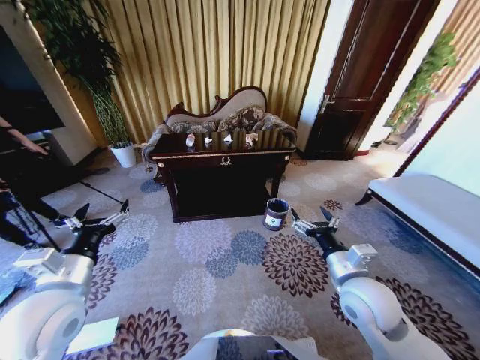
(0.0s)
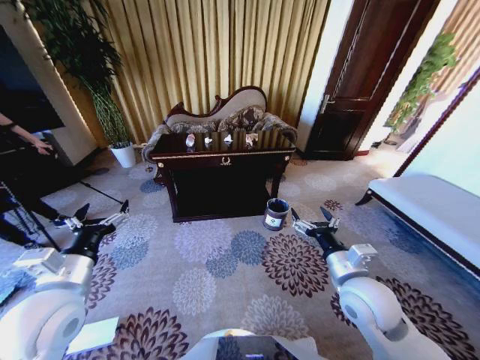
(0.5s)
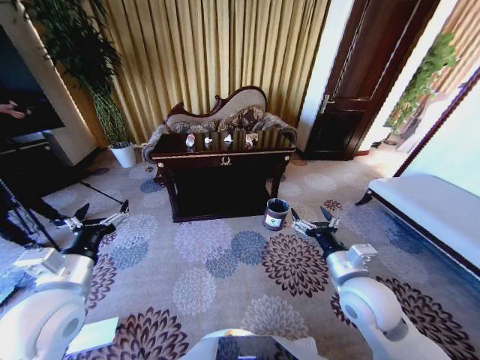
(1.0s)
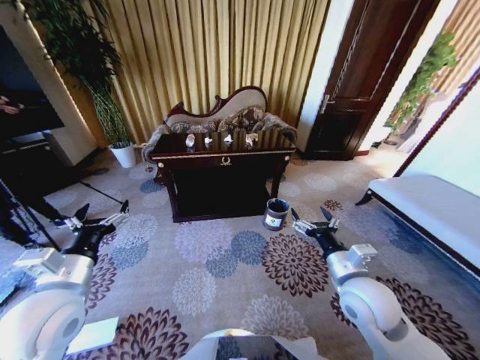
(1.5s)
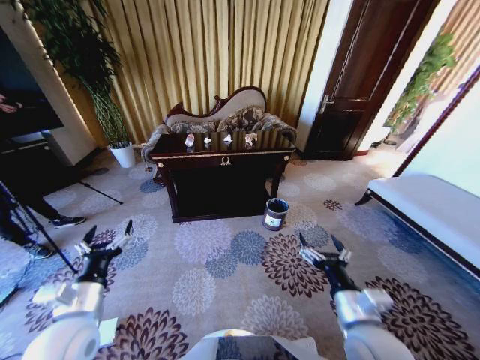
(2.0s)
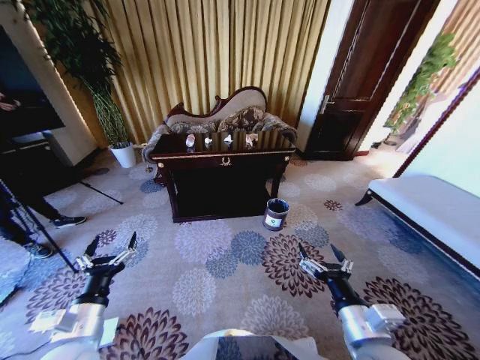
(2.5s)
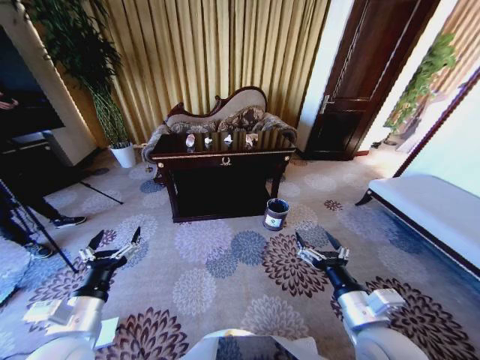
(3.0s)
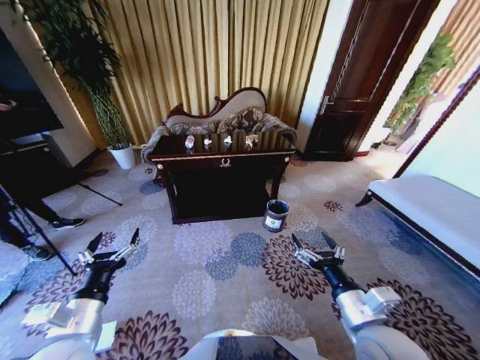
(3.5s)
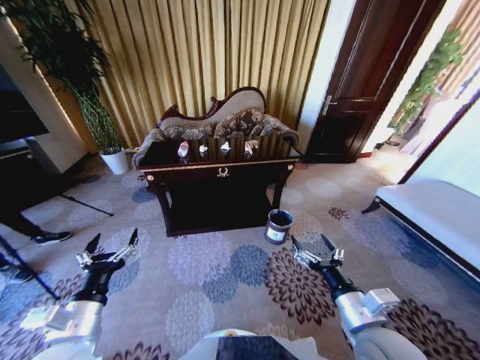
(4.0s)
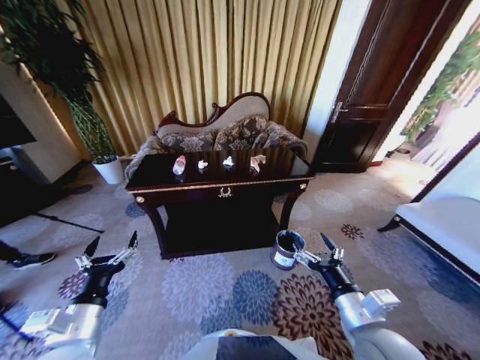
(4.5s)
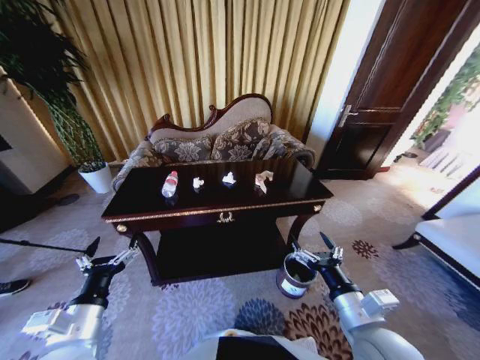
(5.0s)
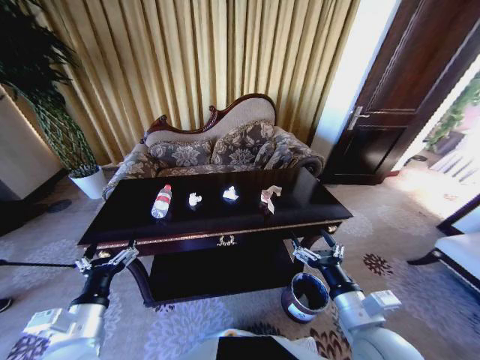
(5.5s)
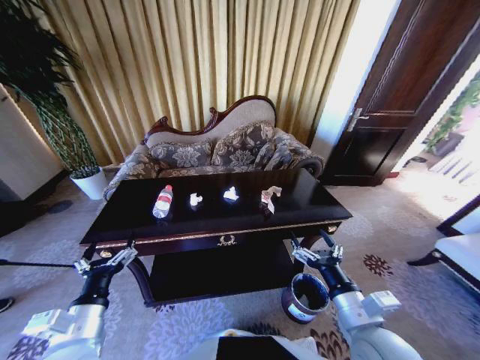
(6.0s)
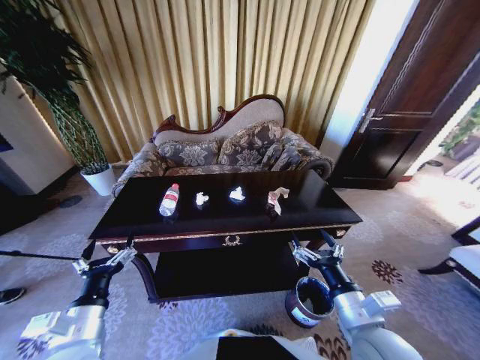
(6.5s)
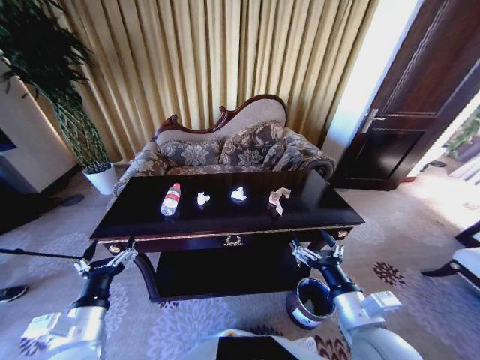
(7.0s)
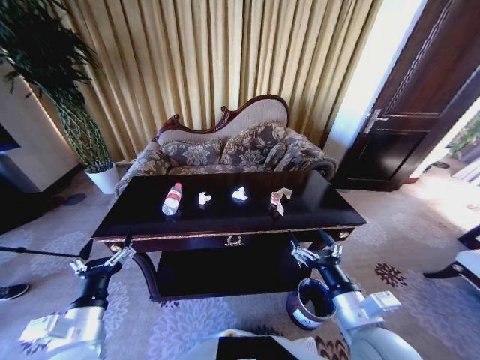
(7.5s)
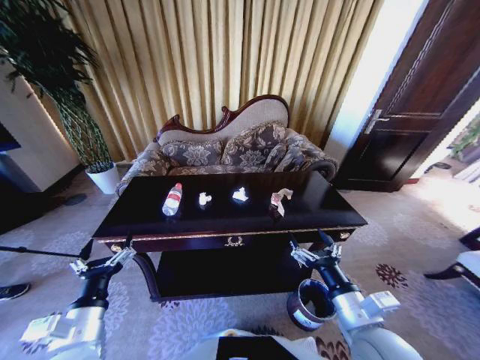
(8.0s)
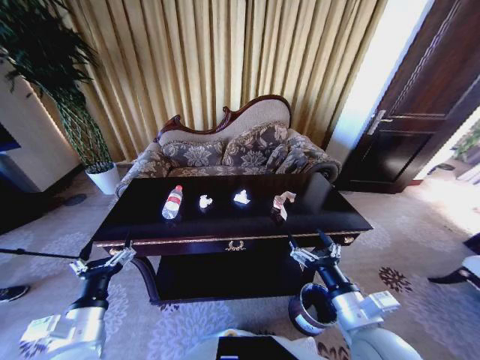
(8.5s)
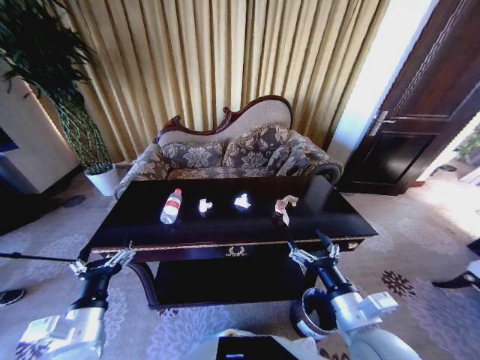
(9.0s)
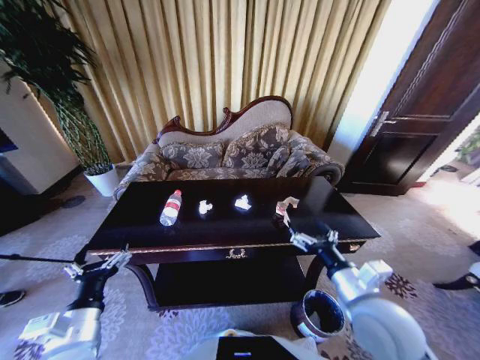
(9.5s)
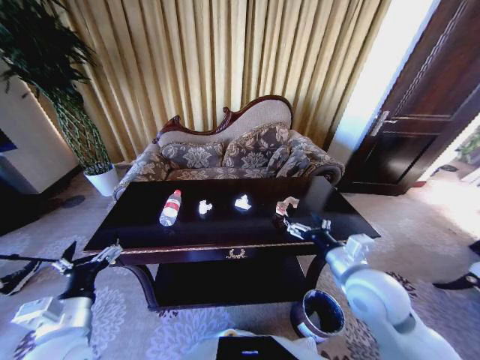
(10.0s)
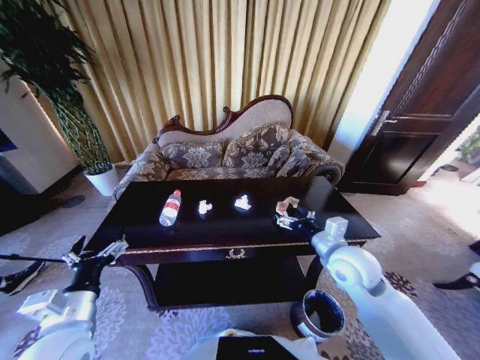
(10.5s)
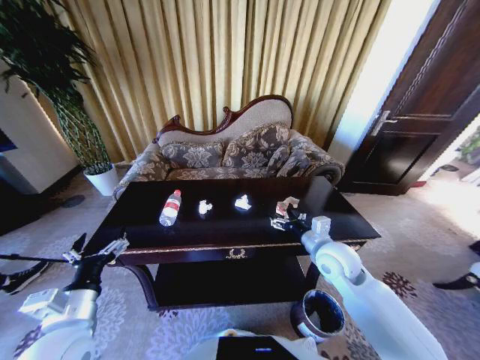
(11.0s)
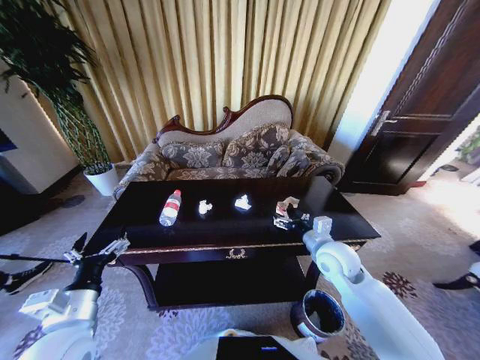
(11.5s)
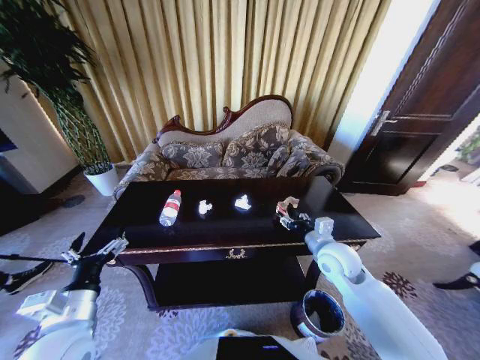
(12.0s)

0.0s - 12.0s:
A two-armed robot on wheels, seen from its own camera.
Task of the whole recording: Move to the front of the table and place the trash on the table into the trash bin.
8.0s - 10.0s: The right gripper heads forward, covering some 10 cm.
10.0s - 12.0s: The right gripper heads forward, covering some 10 cm.

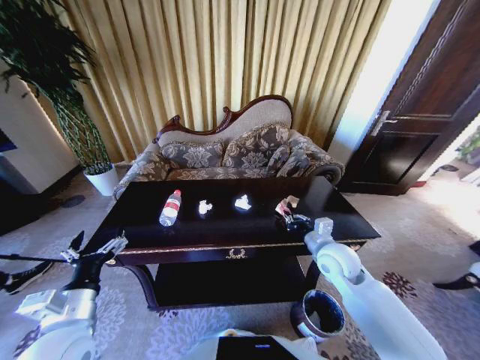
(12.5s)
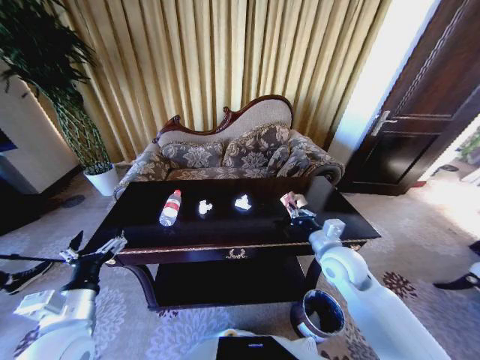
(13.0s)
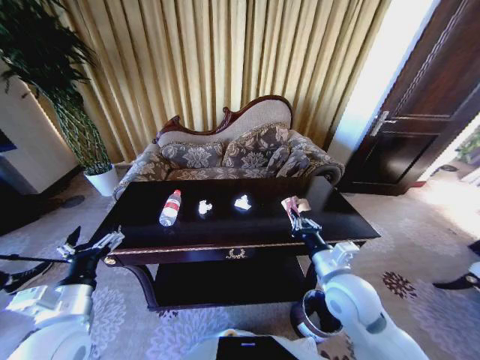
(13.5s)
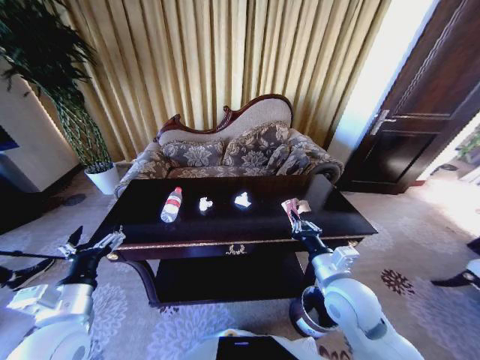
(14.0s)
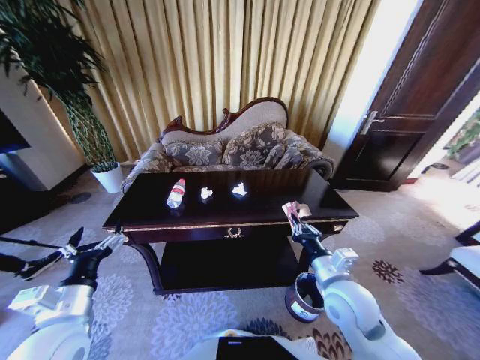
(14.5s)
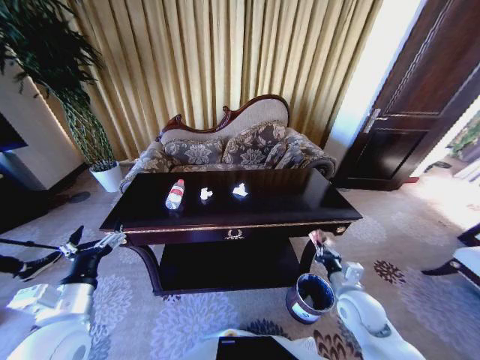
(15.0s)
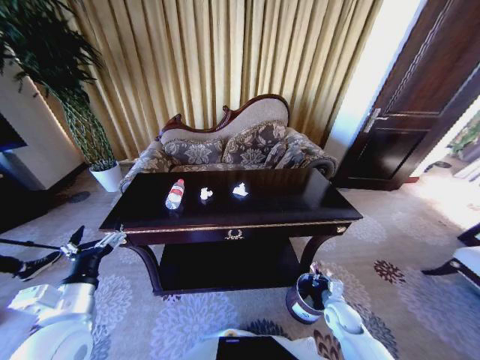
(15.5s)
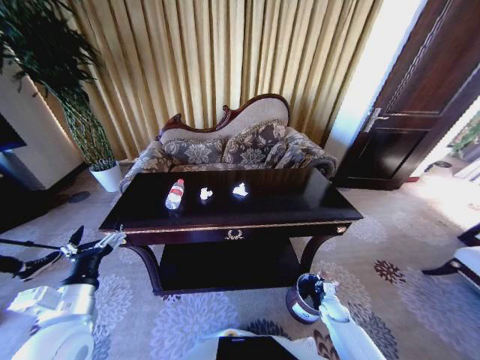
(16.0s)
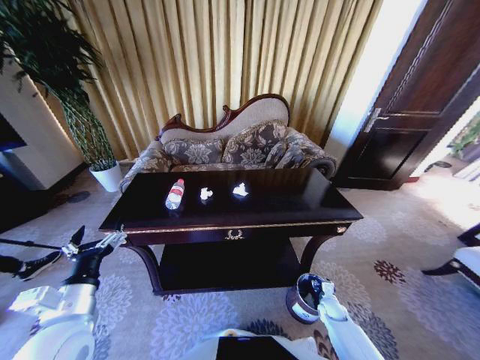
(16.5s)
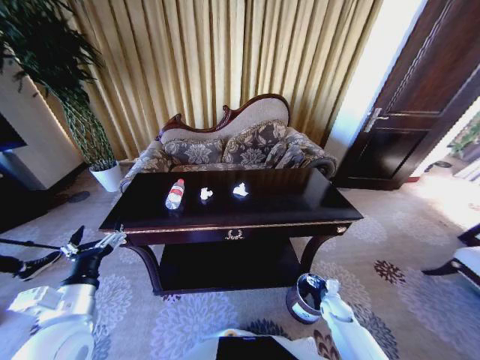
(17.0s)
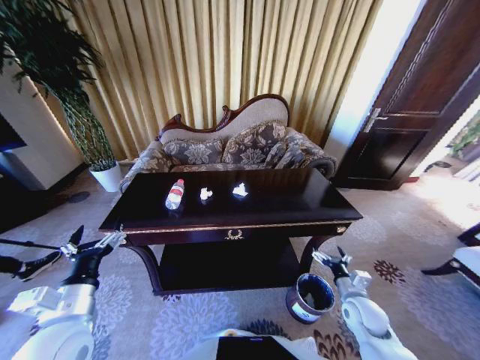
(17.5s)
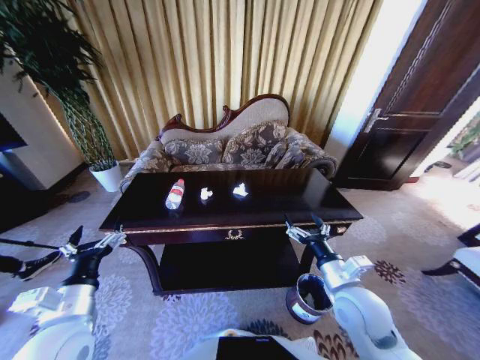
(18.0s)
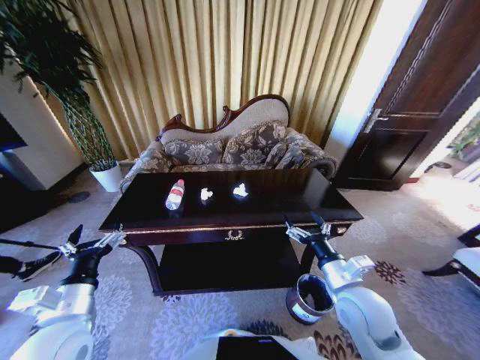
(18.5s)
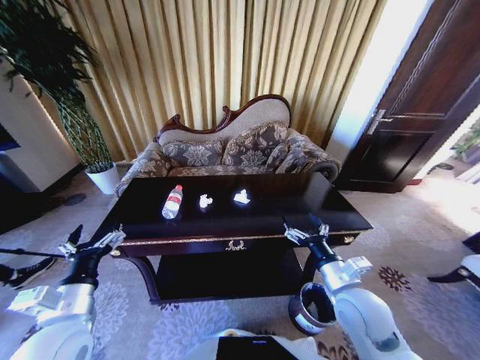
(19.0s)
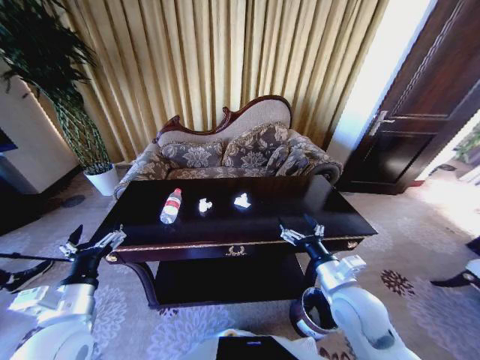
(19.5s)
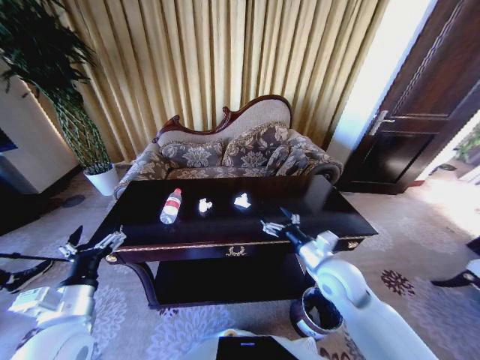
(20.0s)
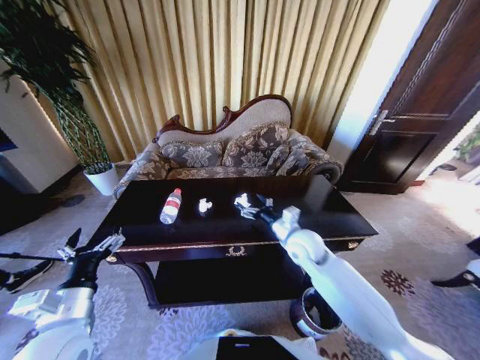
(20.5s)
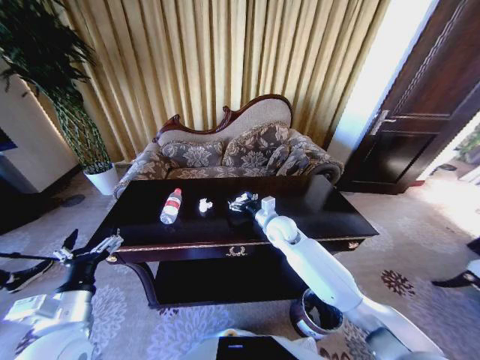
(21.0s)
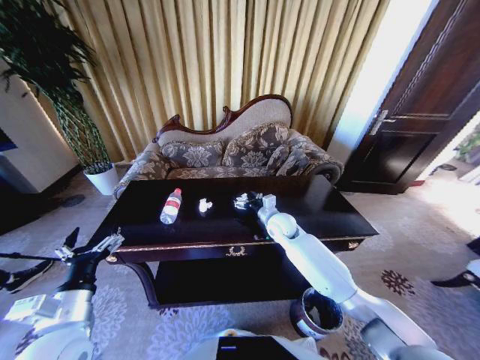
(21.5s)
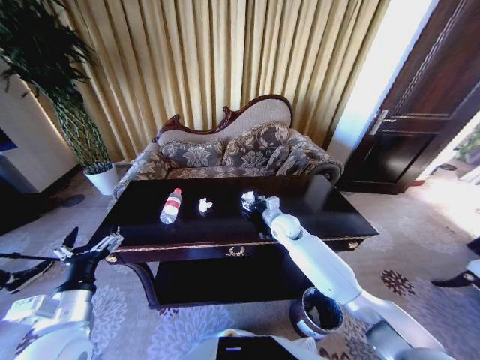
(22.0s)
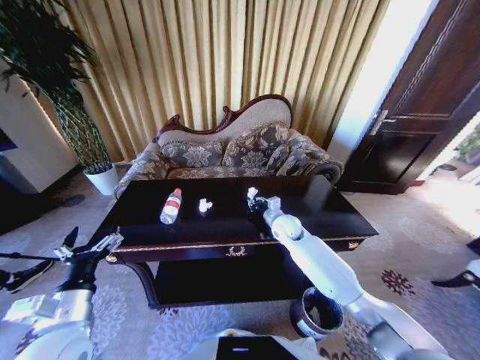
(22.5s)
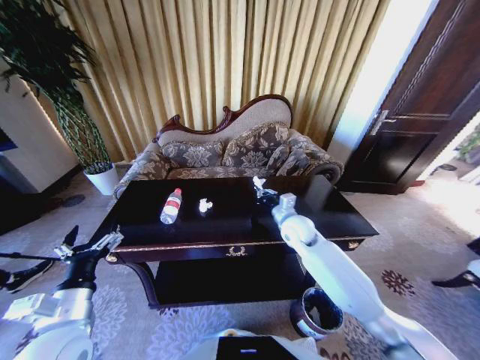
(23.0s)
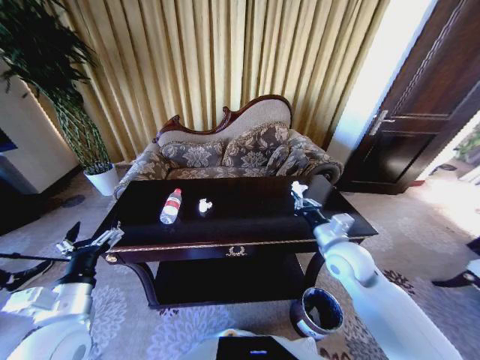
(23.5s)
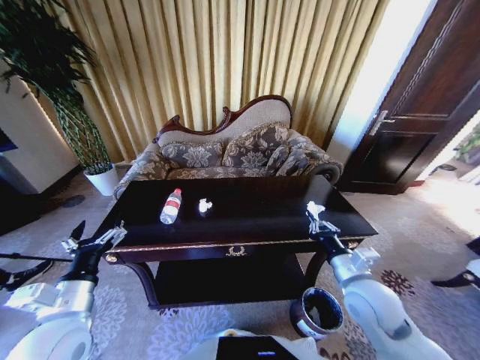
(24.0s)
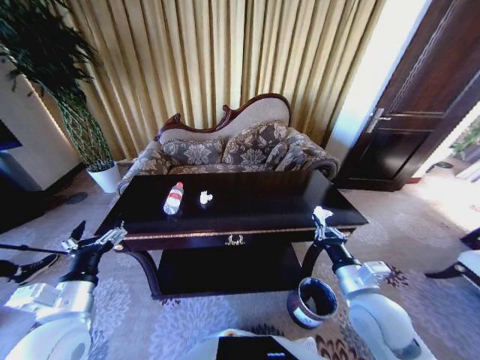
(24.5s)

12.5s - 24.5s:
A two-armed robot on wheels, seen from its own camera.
Task of the whole recording: Move to the front of the table and place the trash on the table into the trash bin.
12.5s - 14.5s: The right gripper goes roughly 10 cm backward.
14.5s - 16.5s: The right gripper travels downward and to the right by roughly 35 cm, and opens.
16.5s - 18.5s: The right gripper goes approximately 35 cm upward, and opens up.
18.5s - 20.5s: The right gripper goes roughly 20 cm forward and to the left.
20.5s - 22.5s: The right gripper goes roughly 10 cm forward, and closes.
22.5s - 24.5s: The right gripper goes roughly 25 cm backward.

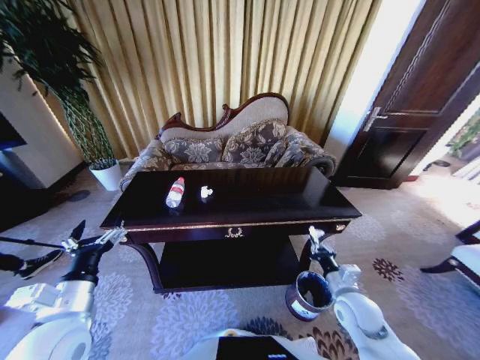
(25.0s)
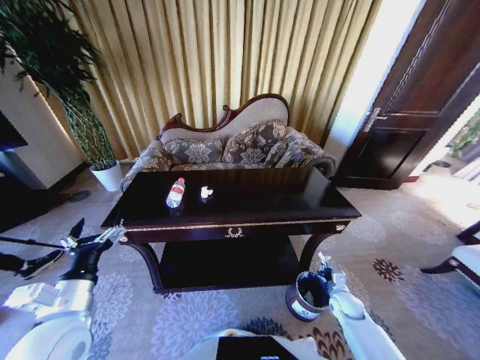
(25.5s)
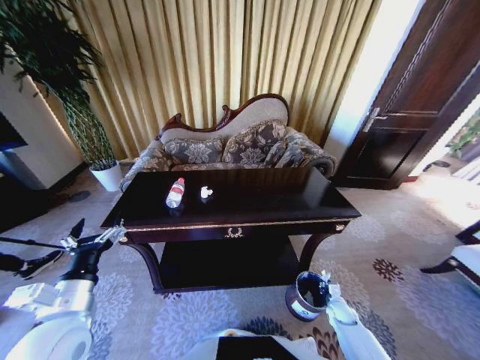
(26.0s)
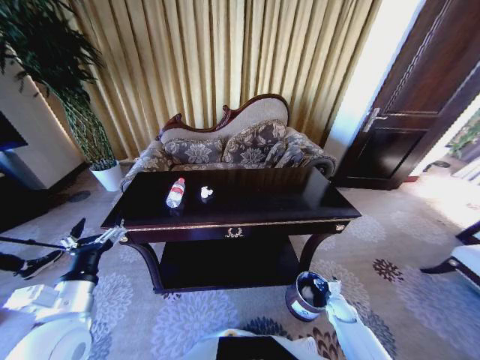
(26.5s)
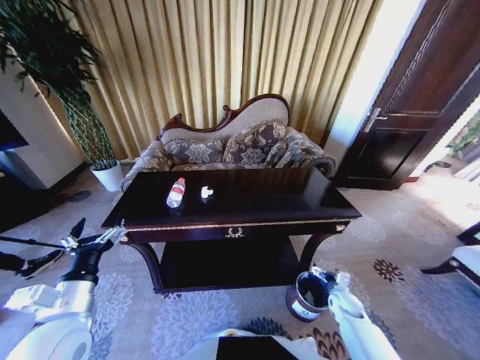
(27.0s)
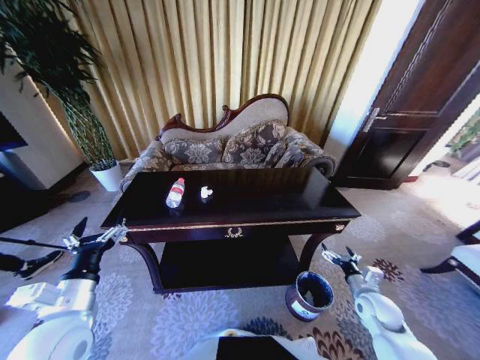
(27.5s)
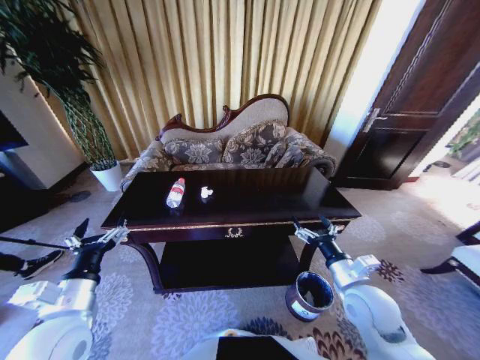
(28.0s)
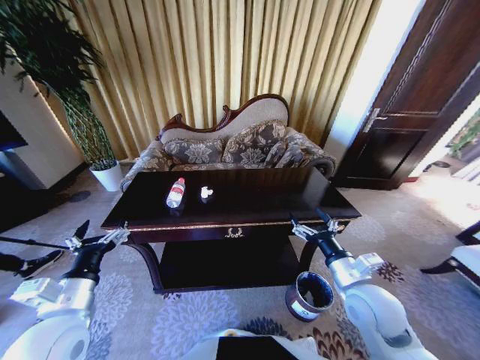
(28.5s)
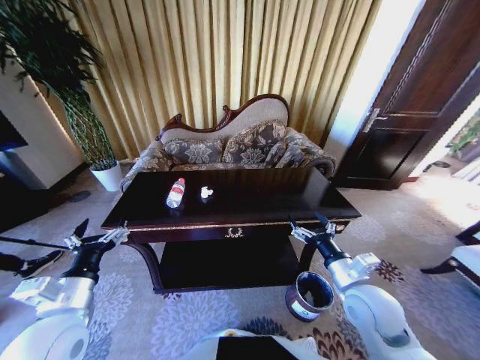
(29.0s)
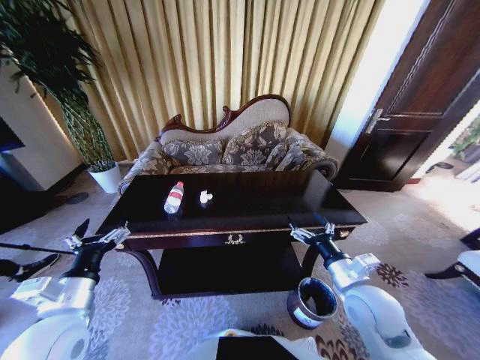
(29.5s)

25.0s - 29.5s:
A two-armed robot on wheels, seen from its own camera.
Task of the whole recording: Move to the front of the table and place the trash on the table into the trash bin.
25.0s - 27.0s: The right gripper travels downward and to the right by roughly 20 cm, and opens up.
27.0s - 29.5s: The right gripper shifts roughly 30 cm upward and to the left.
